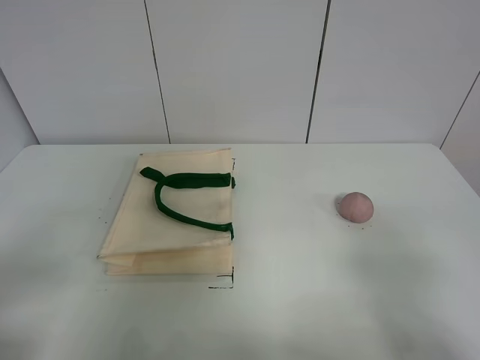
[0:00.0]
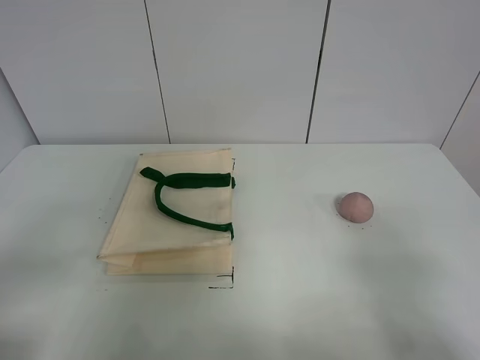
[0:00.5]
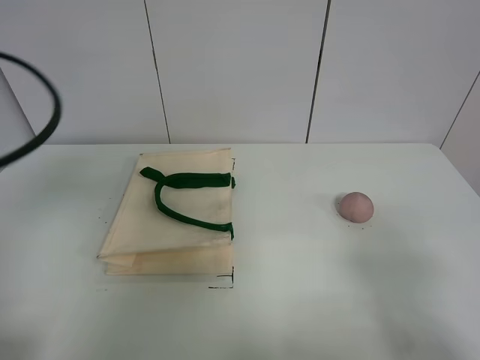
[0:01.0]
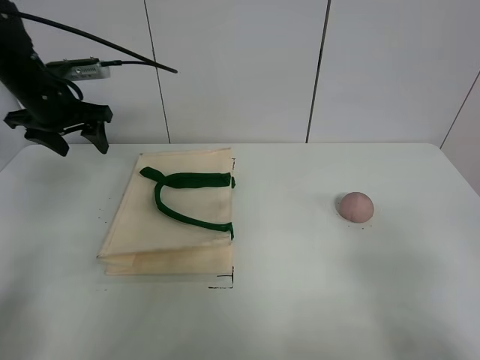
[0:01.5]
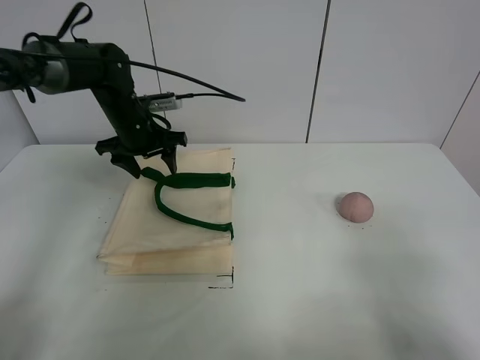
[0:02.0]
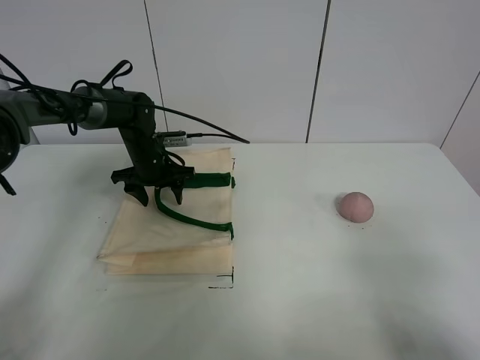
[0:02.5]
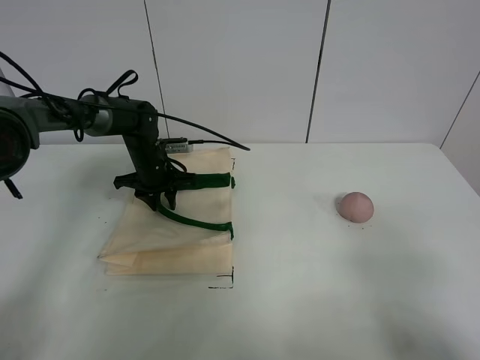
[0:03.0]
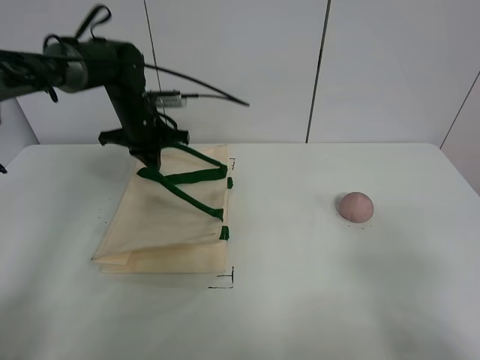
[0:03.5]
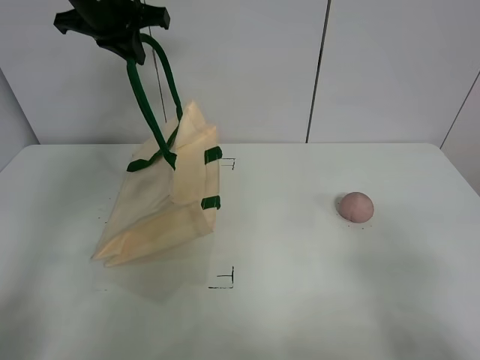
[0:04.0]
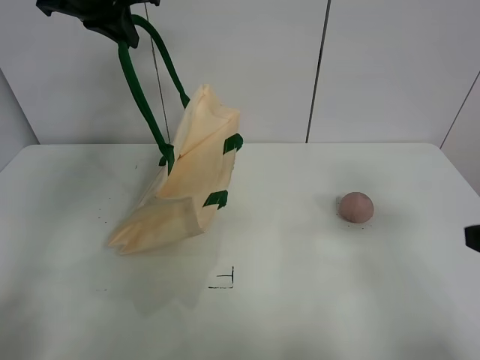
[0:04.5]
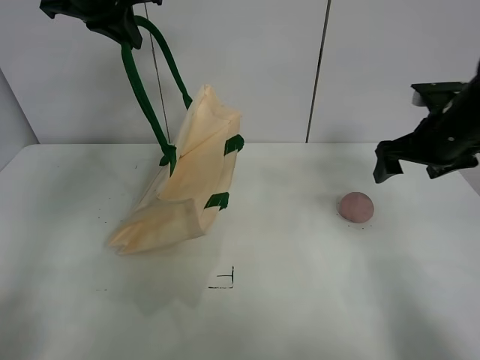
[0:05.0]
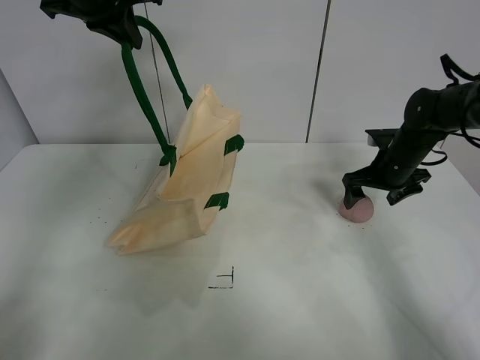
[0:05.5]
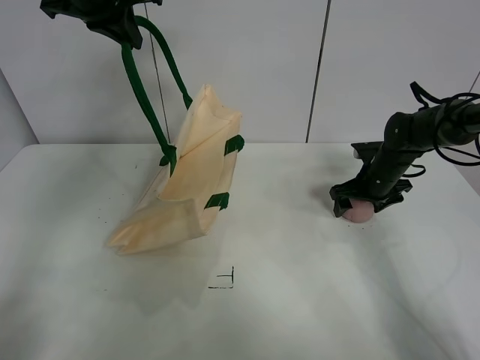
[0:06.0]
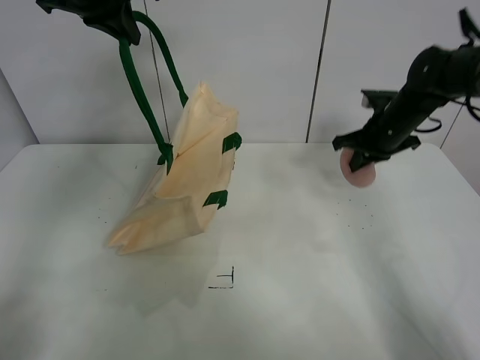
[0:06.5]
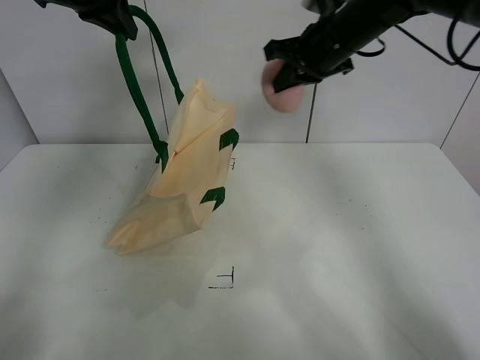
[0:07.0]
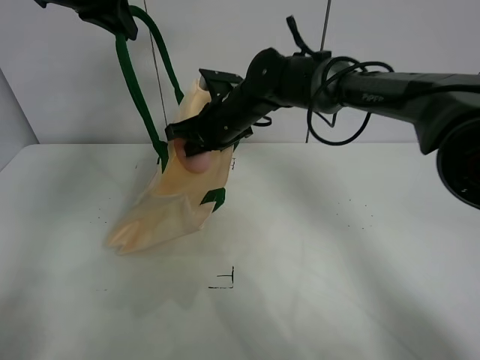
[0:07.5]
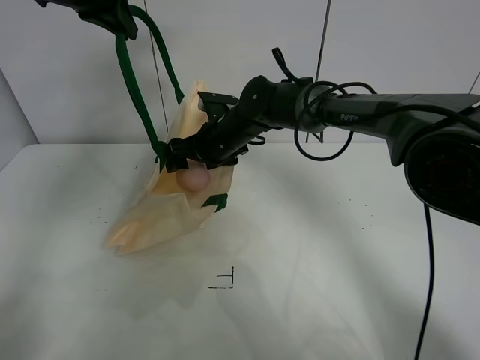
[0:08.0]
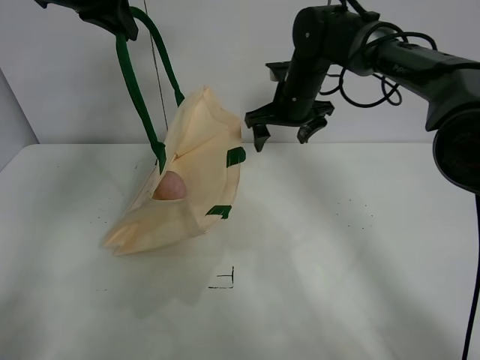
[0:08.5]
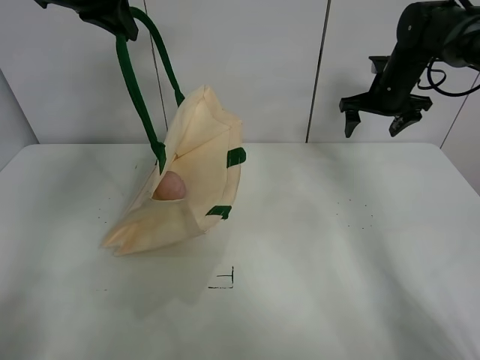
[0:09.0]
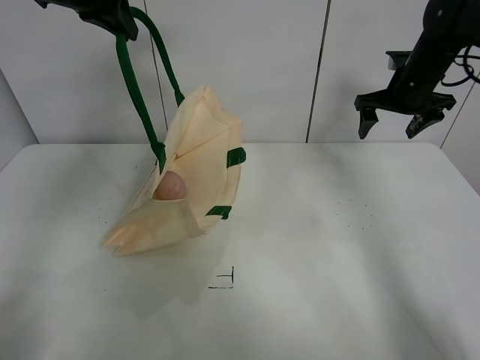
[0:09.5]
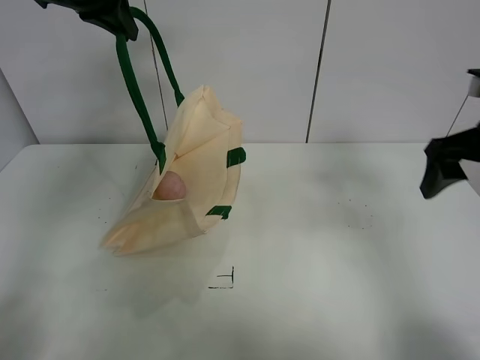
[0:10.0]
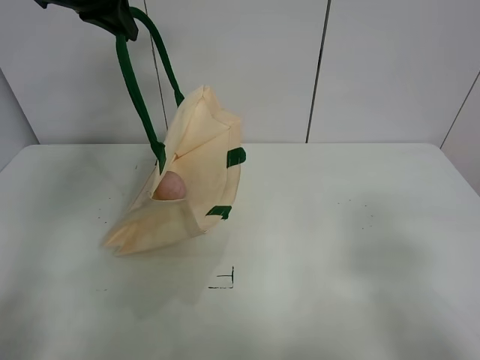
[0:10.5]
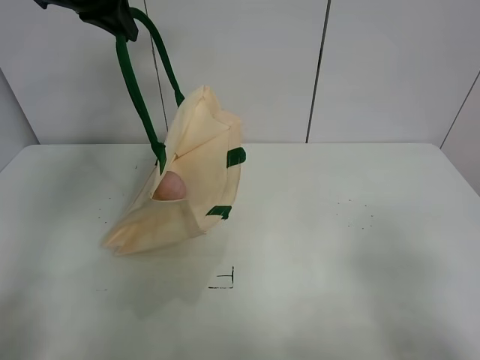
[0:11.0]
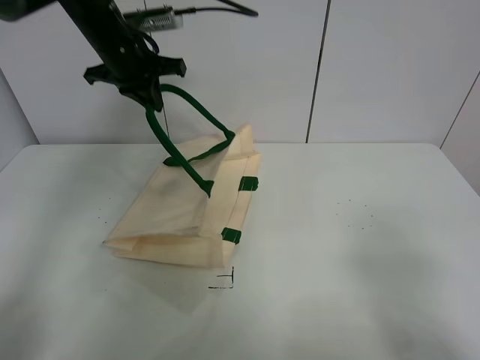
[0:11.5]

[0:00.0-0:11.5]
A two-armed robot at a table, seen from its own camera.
Task of the whole recording: open the white linen bag and put the peach in the bag.
Step, 0:00.0 to 0:04.0: Lift the handbag with left gripper.
Step, 0:04.5 to 0:06.0: Grasp the peach with right gripper.
Step, 0:06.5 to 0:08.5: Place the peach in the handbag with right gripper.
0:00.0 to 0:02.0: The left gripper heads forward, covering some 40 cm.
0:02.0 to 0:04.0: The left gripper shifts roughly 20 cm upward, and closes.
0:04.0 to 0:06.0: The right gripper heads forward and downward, covering roughly 50 cm.
0:06.0 to 0:07.5: The right gripper heads to the left, covering roughly 30 cm, and closes its fingers.
0:07.5 to 0:09.5: The right gripper heads to the right, covering some 30 cm, and opens up.
0:09.5 to 0:11.5: The right gripper shifts roughly 40 cm backward. The left gripper is displaced downward by approximately 10 cm.

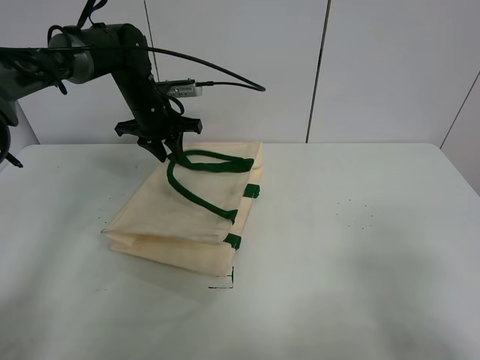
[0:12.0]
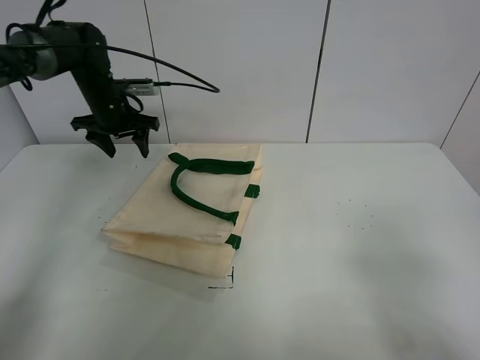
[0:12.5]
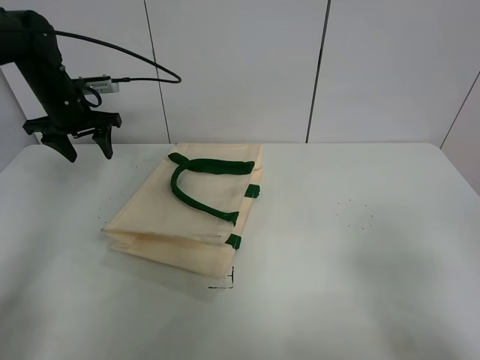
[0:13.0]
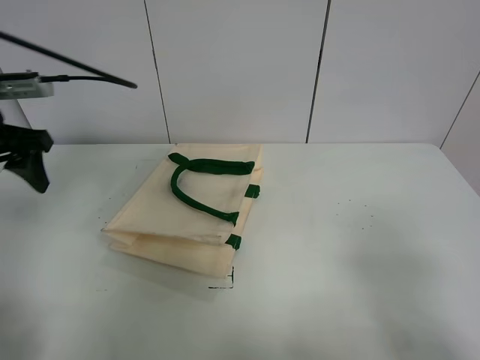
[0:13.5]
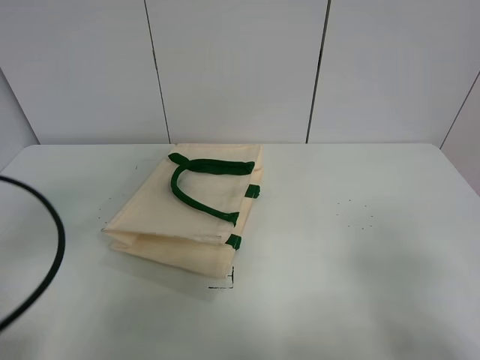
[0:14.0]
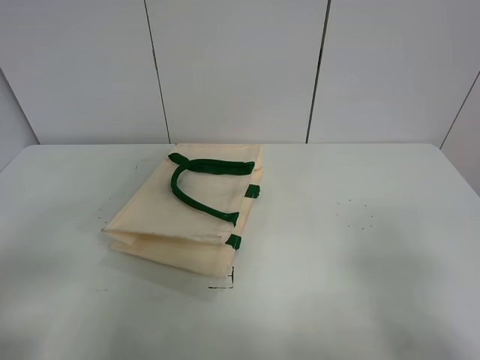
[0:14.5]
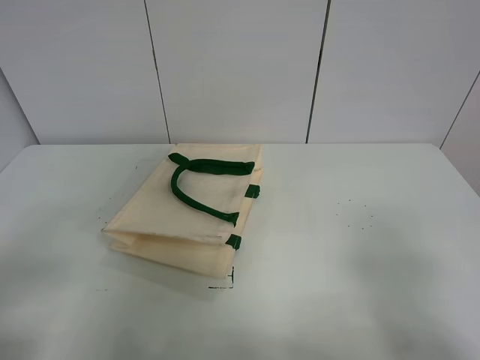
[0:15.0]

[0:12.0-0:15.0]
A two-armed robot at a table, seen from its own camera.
Task of the whole recording: open the white linen bag and put the peach in the bag.
0:12.0 to 0:13.5: The left gripper goes some 25 cm backward, to the left and upward, and opens up.
0:13.5 to 0:15.0: The left gripper shifts approximately 30 cm backward.
